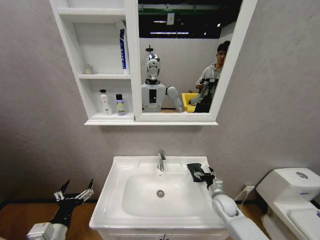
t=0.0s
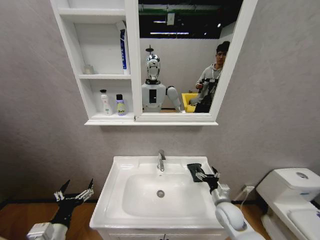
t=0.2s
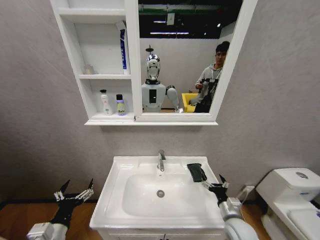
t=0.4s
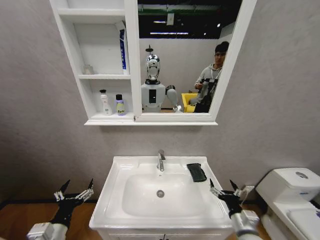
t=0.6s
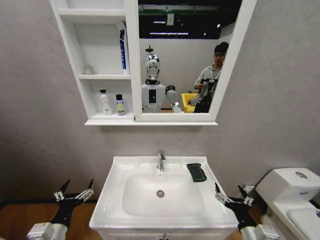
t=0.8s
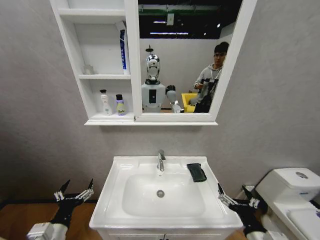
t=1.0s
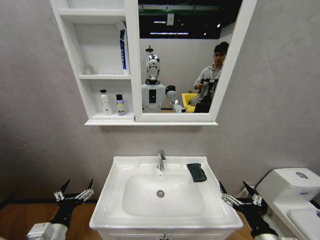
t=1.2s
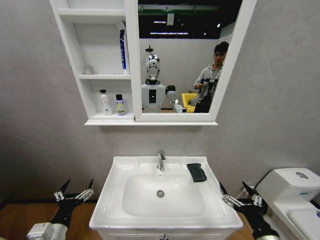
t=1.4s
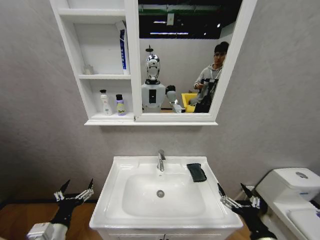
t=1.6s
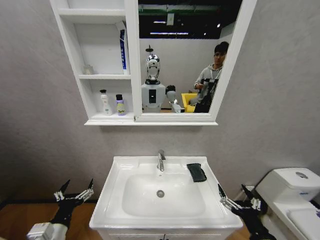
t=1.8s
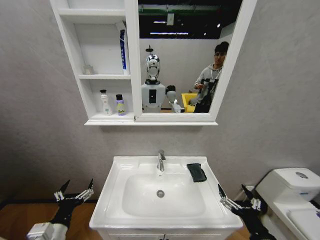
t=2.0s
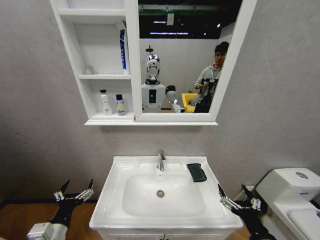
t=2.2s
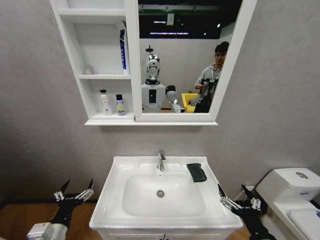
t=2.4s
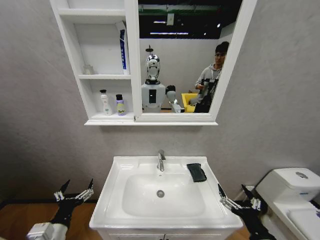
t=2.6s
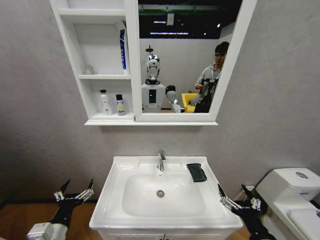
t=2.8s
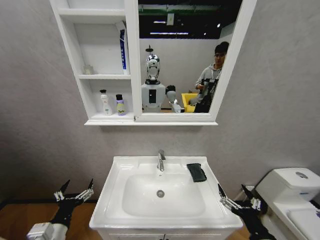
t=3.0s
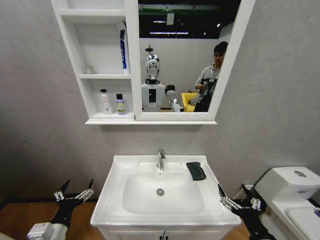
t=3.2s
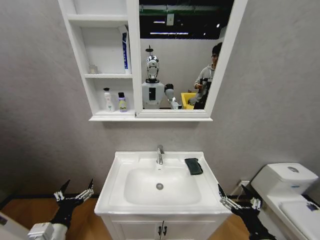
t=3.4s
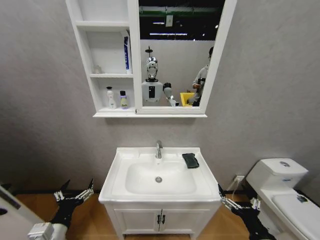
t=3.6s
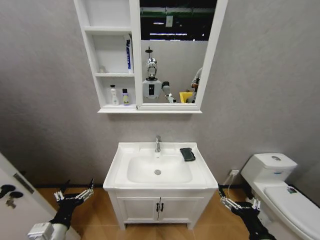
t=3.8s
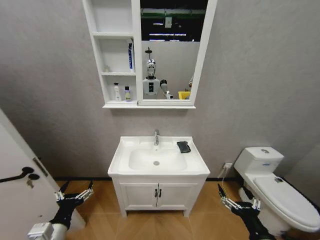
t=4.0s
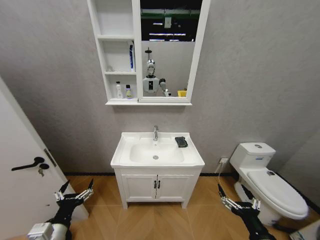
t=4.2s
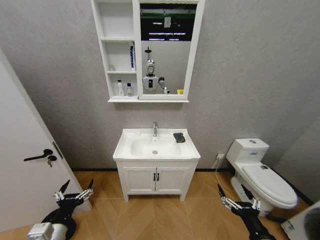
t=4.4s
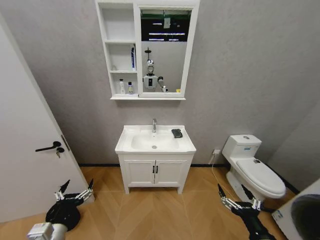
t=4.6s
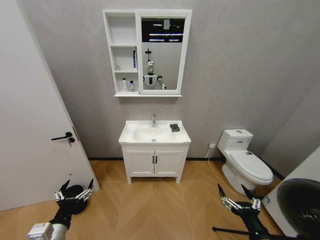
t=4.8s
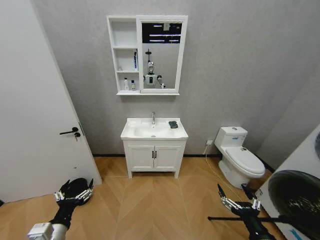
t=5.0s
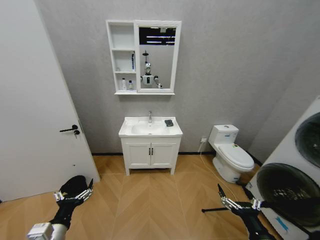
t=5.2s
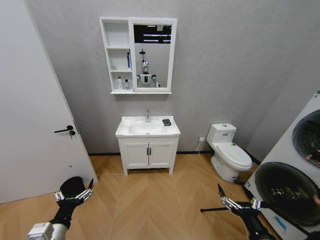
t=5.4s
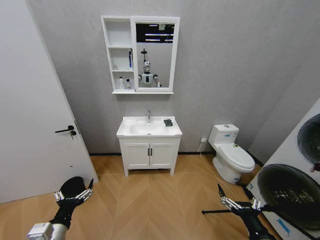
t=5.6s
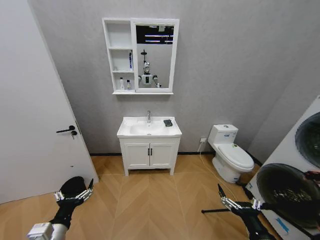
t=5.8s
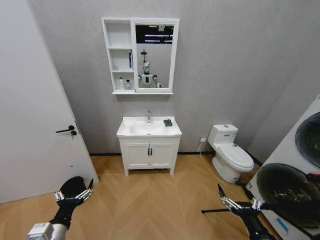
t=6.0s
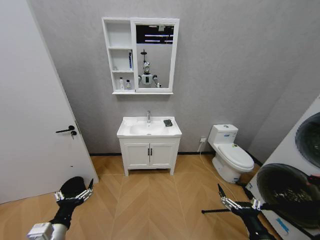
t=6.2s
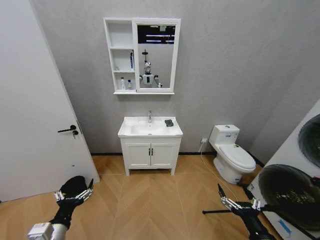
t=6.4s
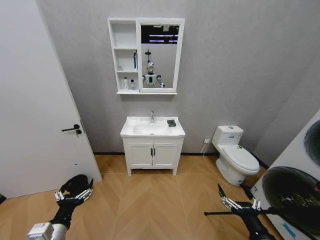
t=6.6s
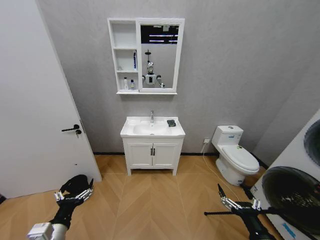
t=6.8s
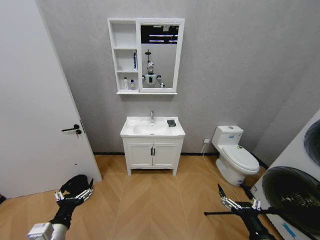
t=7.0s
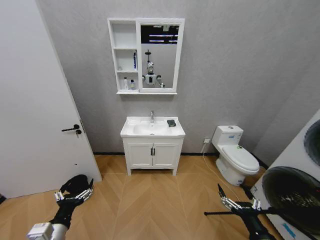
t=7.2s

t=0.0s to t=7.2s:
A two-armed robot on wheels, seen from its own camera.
Task of the whole recording: Move facial cleanser and shampoo from washbasin to cabinet, then wipe washbasin with towel.
t=0.0s to t=1.4s: The right gripper is displaced backward by about 25 cm.
t=1.4s to t=2.8s: The grippers make only small movements.
t=5.8s to t=7.2s: Both grippers stay about where they are.

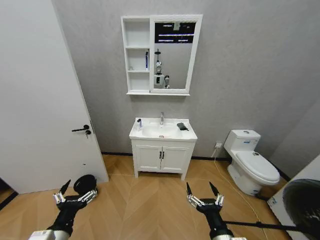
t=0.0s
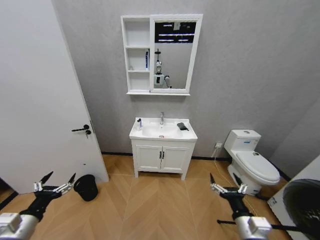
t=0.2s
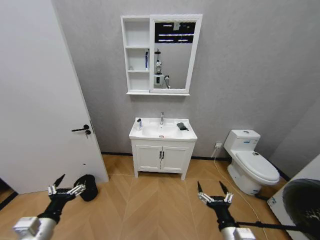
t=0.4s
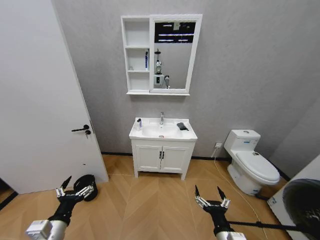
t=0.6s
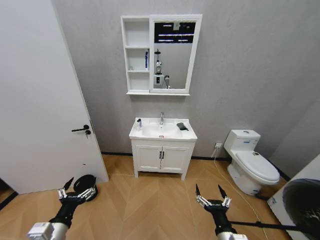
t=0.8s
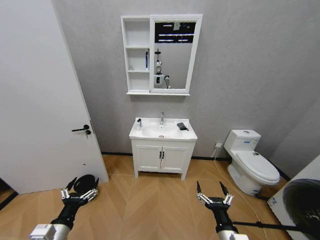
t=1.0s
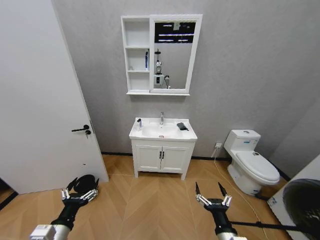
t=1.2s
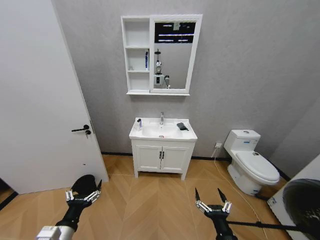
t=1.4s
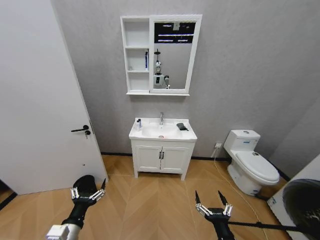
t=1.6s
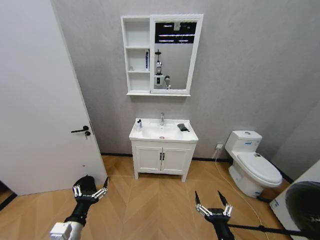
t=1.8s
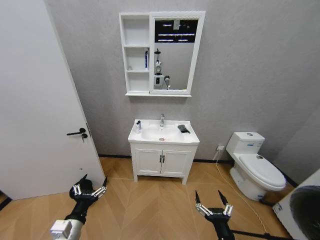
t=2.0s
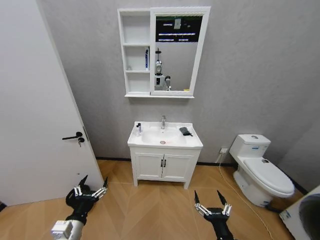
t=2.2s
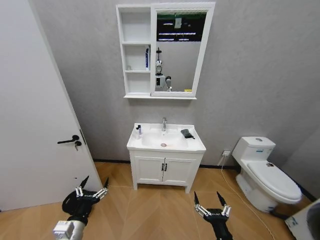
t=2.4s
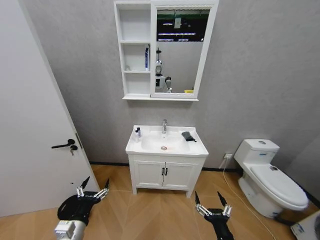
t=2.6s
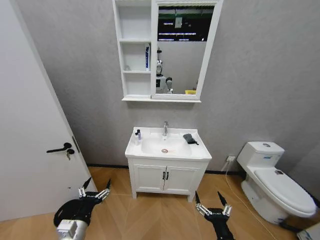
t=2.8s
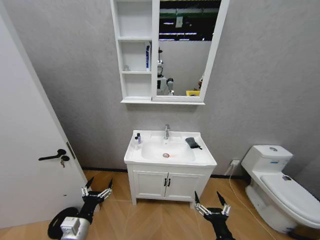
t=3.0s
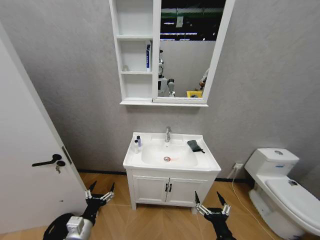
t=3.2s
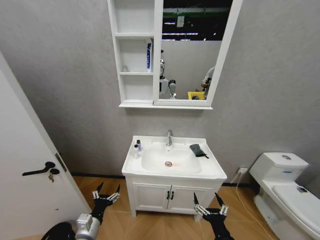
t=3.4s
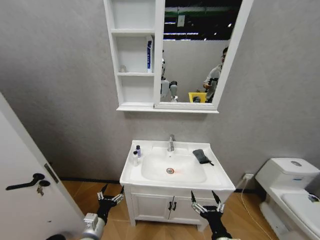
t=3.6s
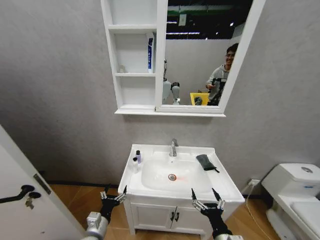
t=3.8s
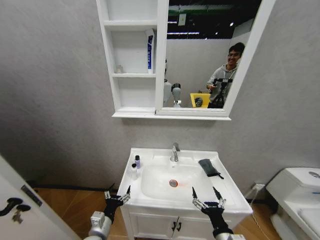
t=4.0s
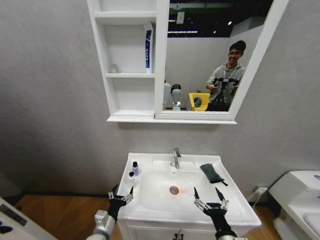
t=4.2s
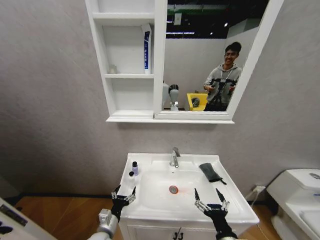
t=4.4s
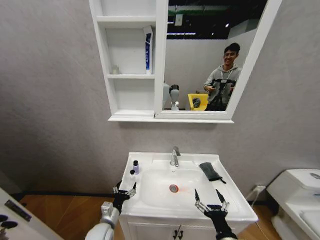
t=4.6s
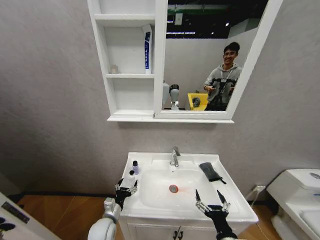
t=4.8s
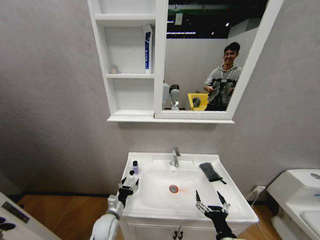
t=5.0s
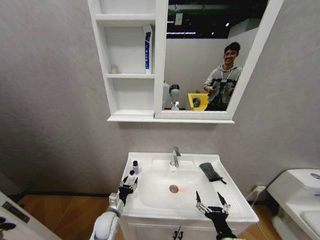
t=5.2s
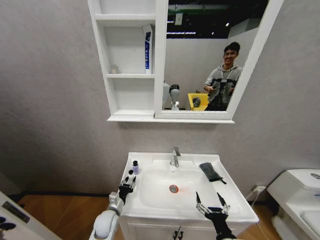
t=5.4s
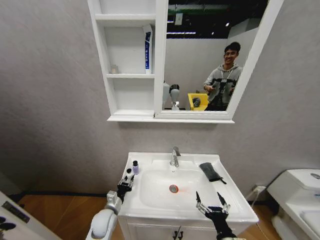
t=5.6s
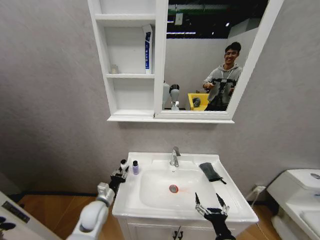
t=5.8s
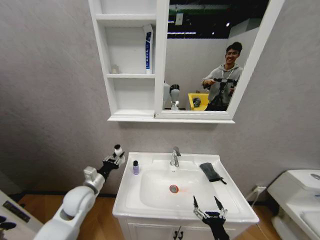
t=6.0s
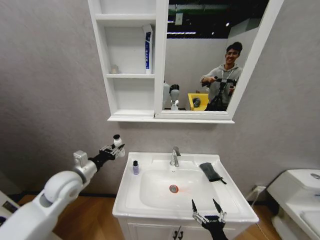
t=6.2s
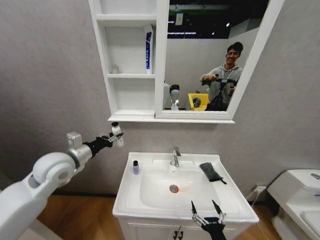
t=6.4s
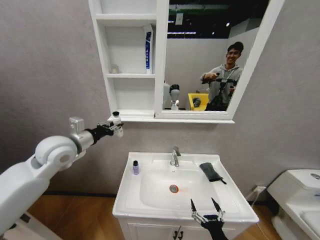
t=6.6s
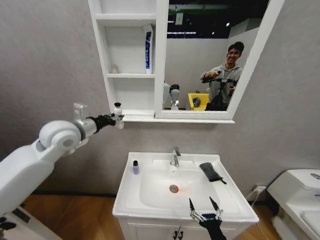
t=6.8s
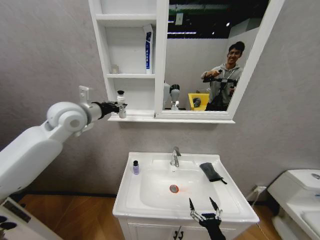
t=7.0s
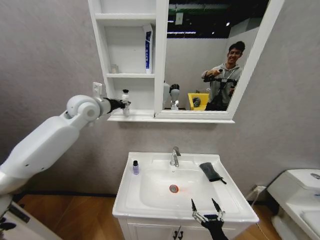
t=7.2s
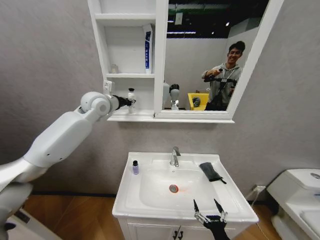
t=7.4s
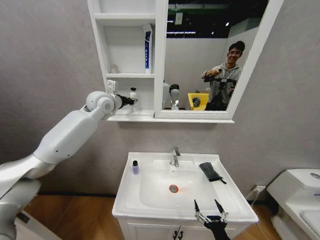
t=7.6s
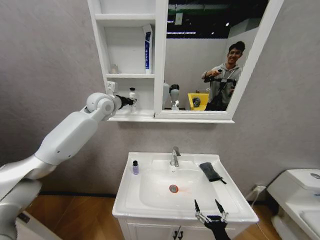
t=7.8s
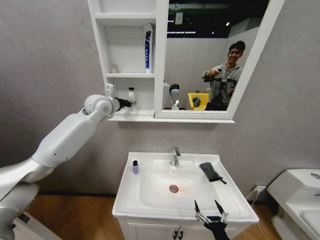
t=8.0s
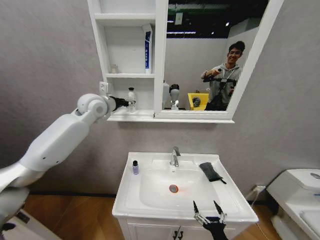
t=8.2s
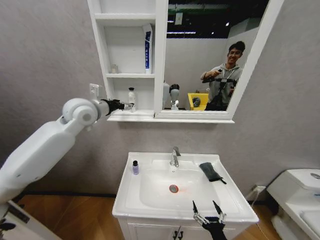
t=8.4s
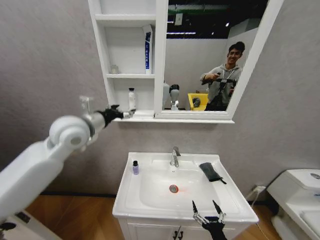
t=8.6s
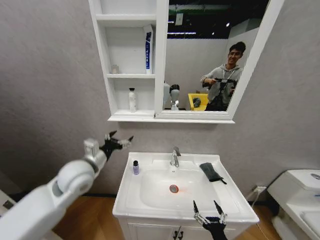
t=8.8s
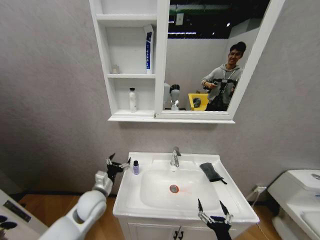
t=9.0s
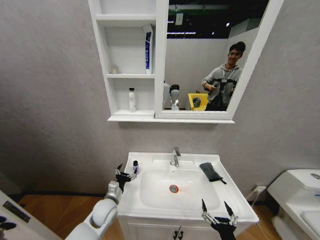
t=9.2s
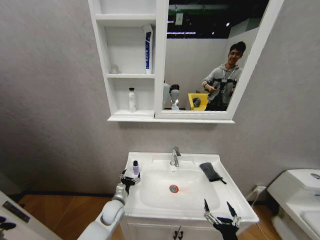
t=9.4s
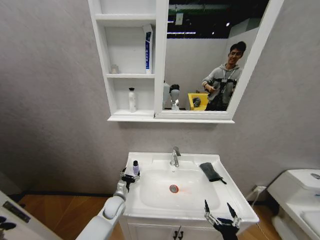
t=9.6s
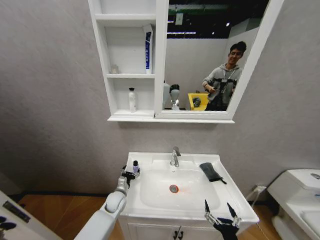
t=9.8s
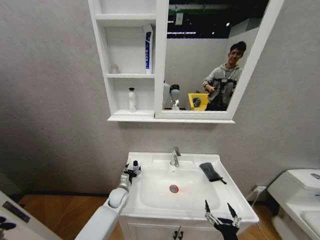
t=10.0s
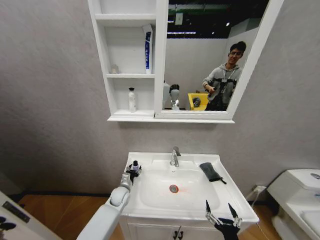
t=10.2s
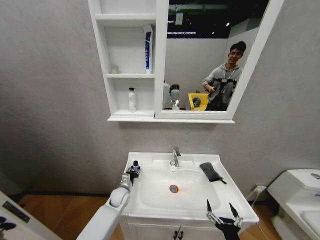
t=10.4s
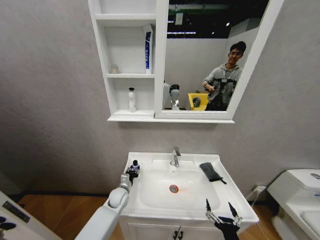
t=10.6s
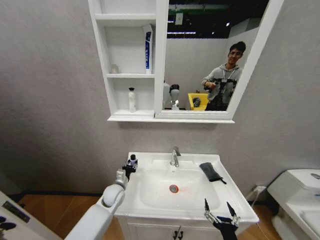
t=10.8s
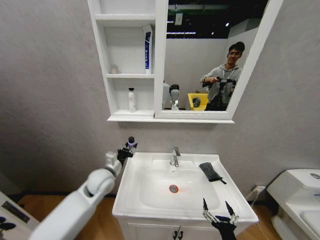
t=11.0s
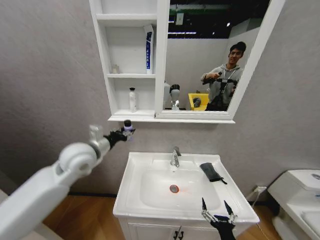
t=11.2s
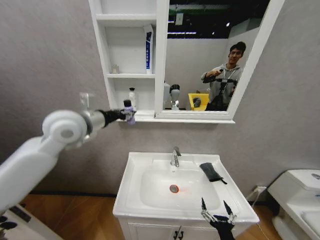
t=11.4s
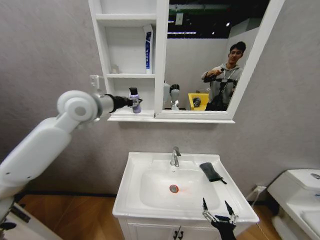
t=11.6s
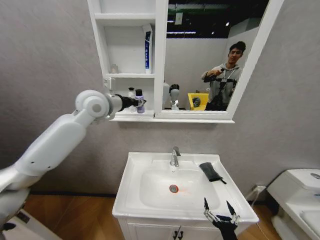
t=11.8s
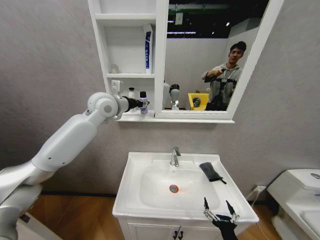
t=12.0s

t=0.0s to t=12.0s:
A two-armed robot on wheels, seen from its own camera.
Task of the whole recording: Move facial cleanser and shampoo from washbasin to cabinet, then wipe washbasin with towel.
t=3.0s to t=4.4s: The left gripper goes some 10 cm downward, to the right and forward.
t=4.4s to t=6.0s: The left gripper goes approximately 20 cm upward, forward and to the left, and closes up.
t=6.0s to t=7.6s: The left gripper travels upward and forward by some 35 cm.
t=7.6s to t=9.0s: The left gripper is displaced downward and backward by some 40 cm, and opens up.
t=9.0s to t=10.4s: The left gripper goes about 20 cm downward, forward and to the right, and closes.
t=10.4s to t=12.0s: The left gripper is displaced upward by roughly 50 cm.

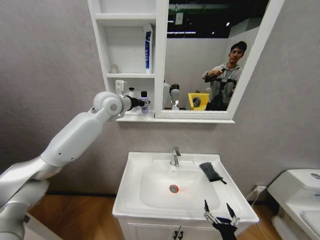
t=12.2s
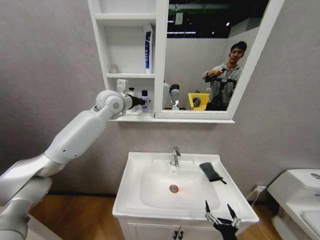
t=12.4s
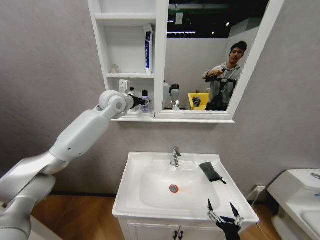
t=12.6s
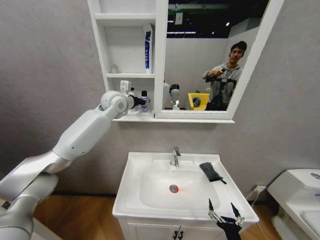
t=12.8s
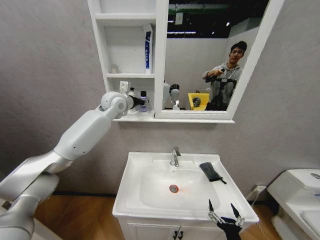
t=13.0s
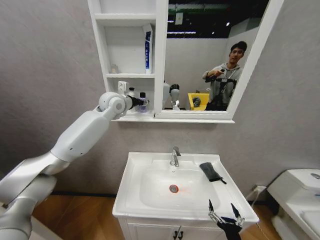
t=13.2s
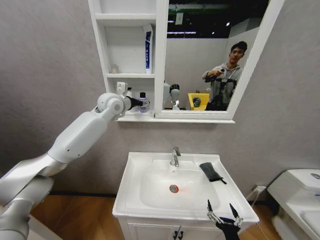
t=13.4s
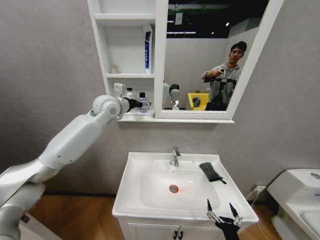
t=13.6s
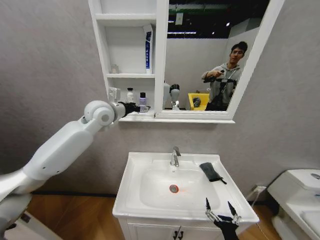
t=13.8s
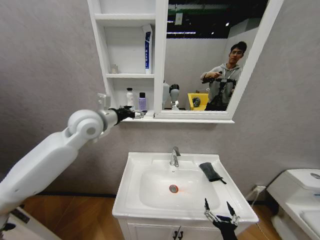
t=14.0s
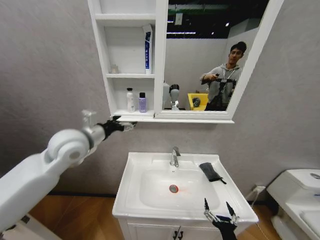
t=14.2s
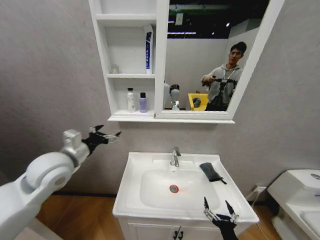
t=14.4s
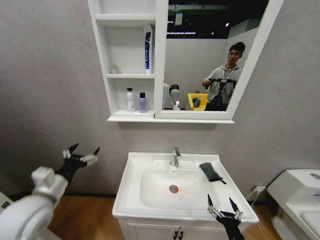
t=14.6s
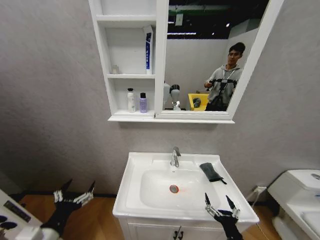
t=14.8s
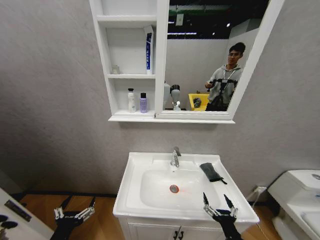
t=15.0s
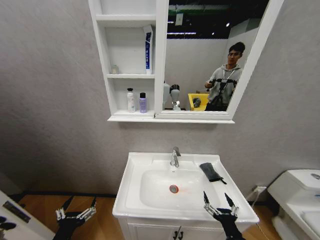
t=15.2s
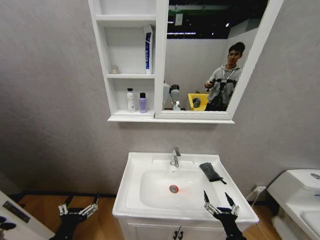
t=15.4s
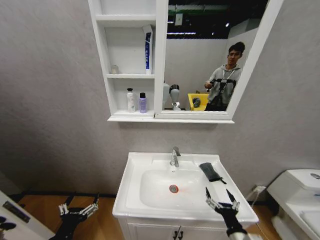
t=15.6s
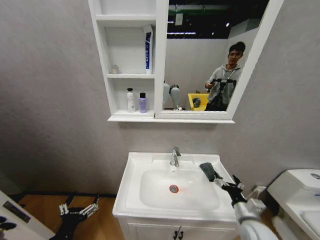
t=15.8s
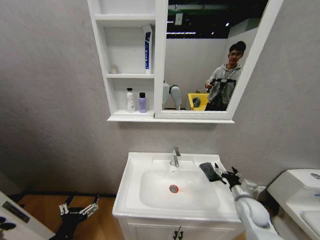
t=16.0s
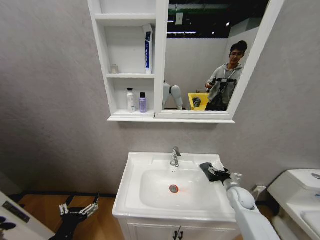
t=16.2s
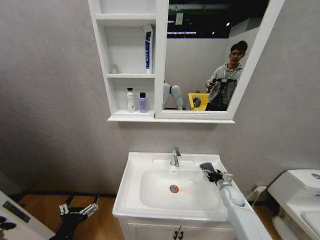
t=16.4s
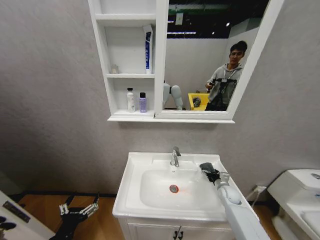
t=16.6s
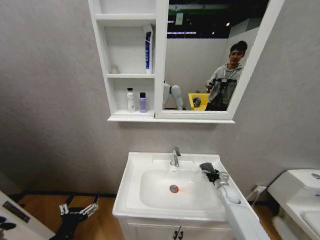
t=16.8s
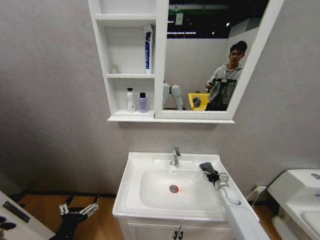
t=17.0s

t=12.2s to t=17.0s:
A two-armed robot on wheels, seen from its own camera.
Task of the whole recording: Move facial cleanser and shampoo from washbasin to cabinet, then wipe washbasin with towel.
t=12.2s to t=13.8s: The left gripper opens up.
t=13.8s to t=15.4s: The left gripper shifts about 50 cm backward and downward.
t=15.4s to t=17.0s: The right gripper is displaced forward and to the right by approximately 35 cm.
